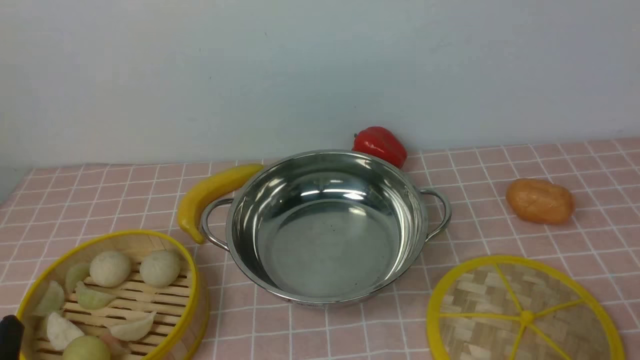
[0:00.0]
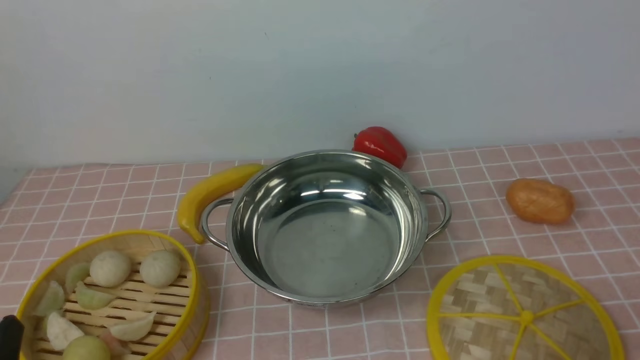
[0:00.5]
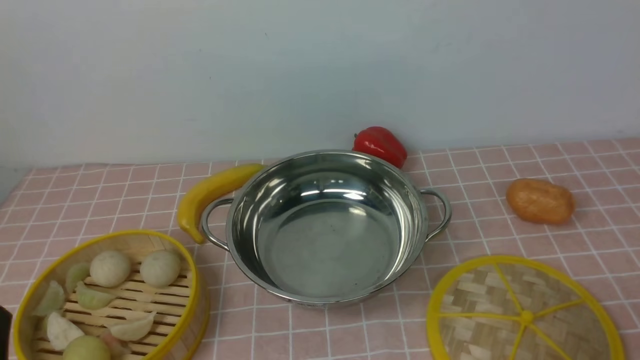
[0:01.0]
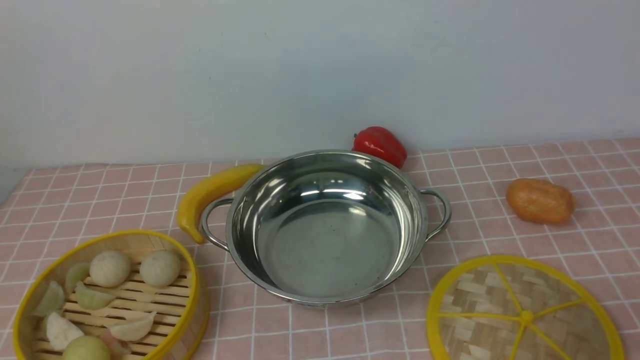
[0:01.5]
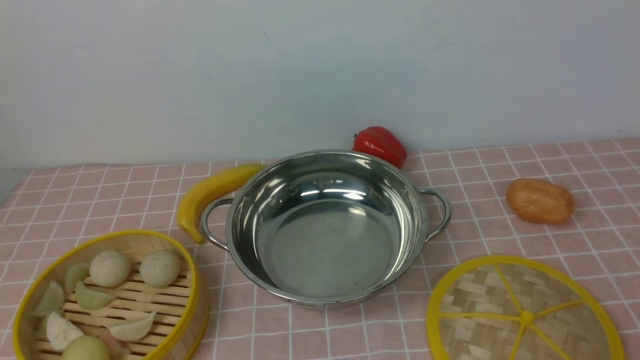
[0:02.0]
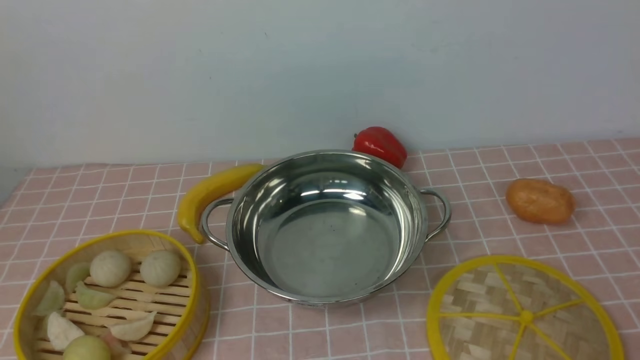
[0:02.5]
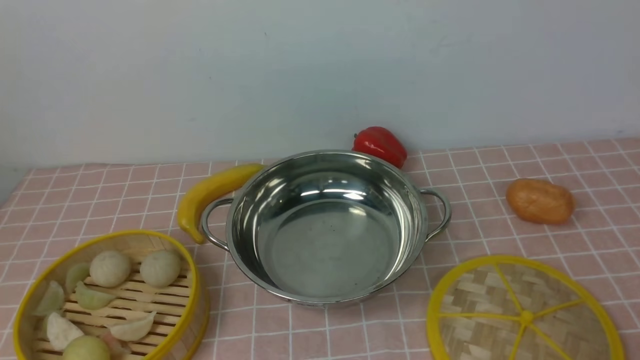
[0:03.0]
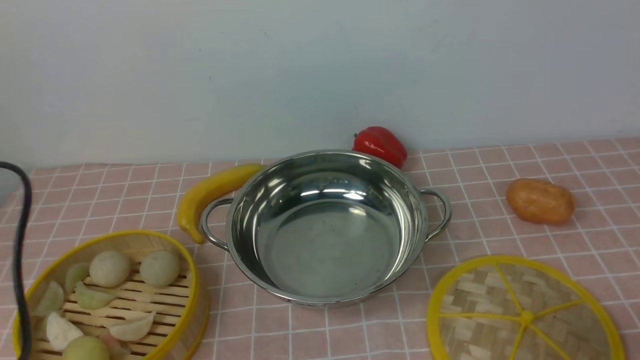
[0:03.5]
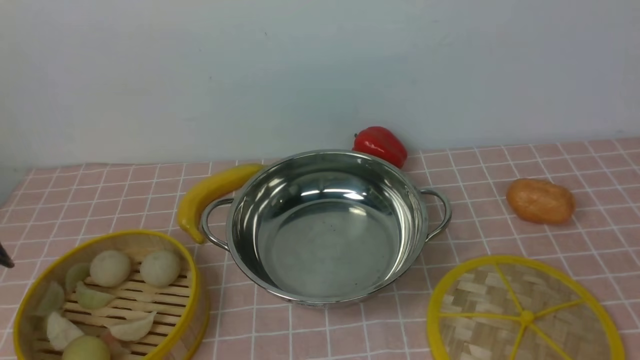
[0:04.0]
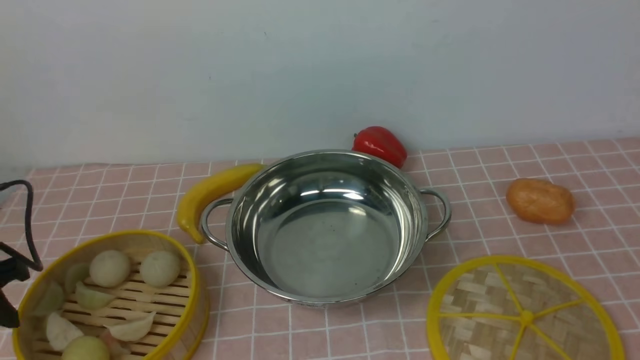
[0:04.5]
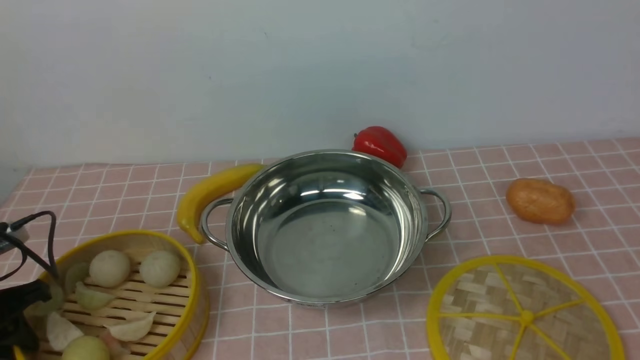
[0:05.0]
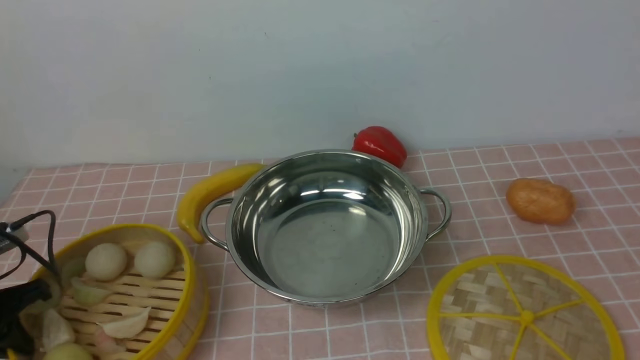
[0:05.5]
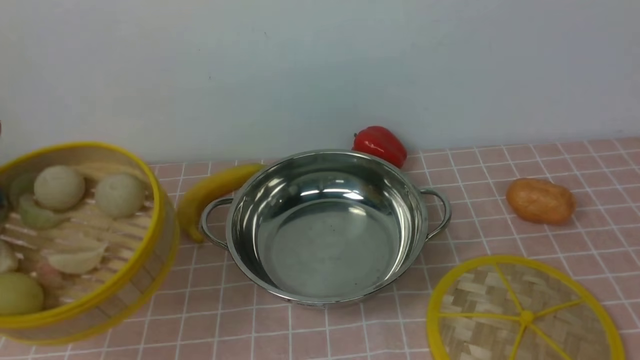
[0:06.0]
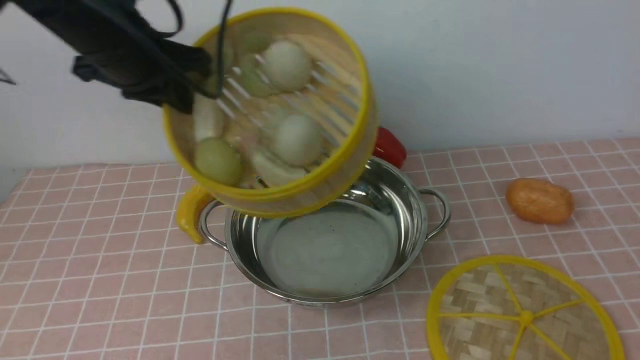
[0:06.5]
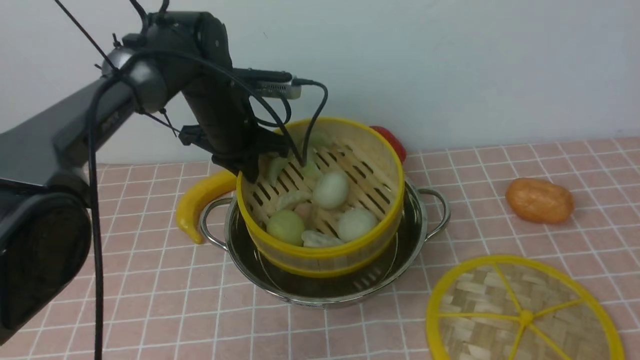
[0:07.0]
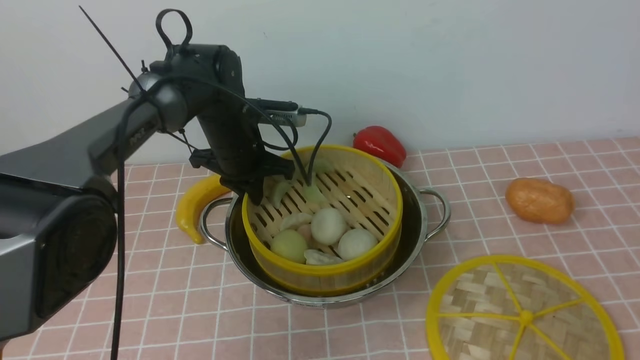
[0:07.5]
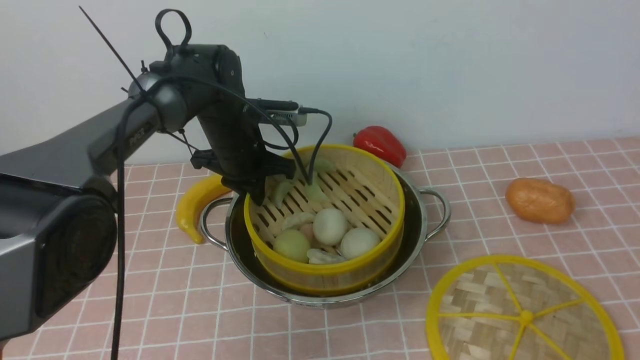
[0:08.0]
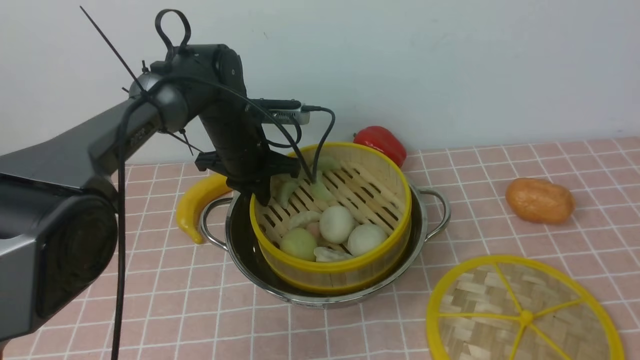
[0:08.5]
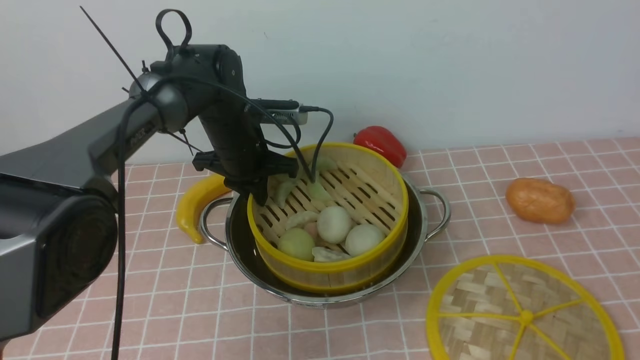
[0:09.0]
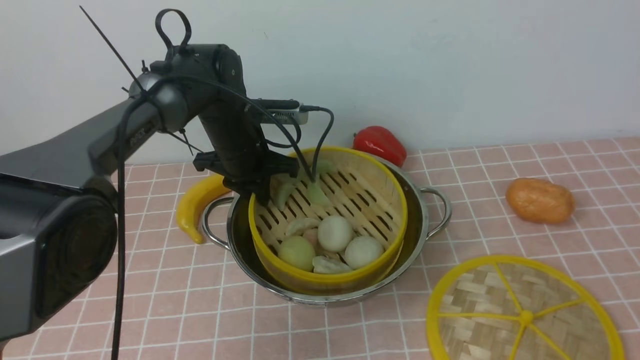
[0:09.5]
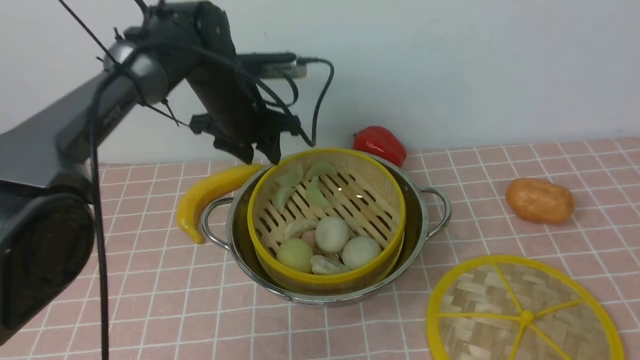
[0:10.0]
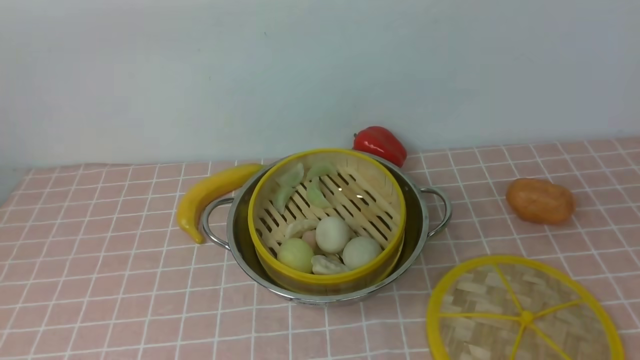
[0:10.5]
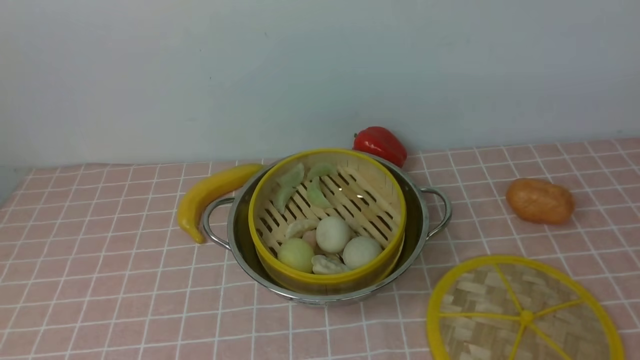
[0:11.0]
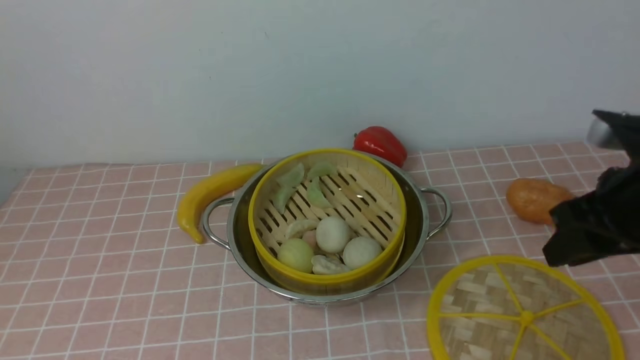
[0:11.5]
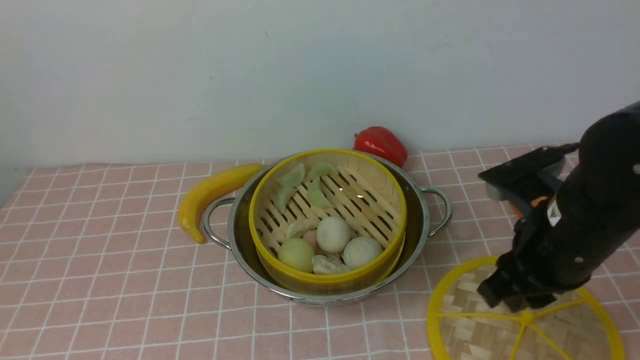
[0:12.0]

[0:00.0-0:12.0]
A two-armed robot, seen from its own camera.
Task of the whole recording: place the steamer in the pot on the pink tablecloth, and put the lid on the steamer.
Step, 0:00.0 to 0:05.5: use the left arm to lift the steamer closest to it.
Step, 0:06.0 to 0:09.5: use the left arm to put the steamer into the iron steamer pot in the middle.
0:02.0 to 0:04.0: The left gripper heads forward and to the left, covering some 20 cm.
0:04.0 to 0:06.0: The left gripper is displaced forward by roughly 5 cm, travels downward and back again, approximately 10 cm each way, and closes up.
0:06.0 to 0:08.0: The left gripper goes some 35 cm to the right, forward and downward.
0:08.0 to 0:10.0: The left gripper shifts about 10 cm upward, and opens up.
0:10.0 to 0:12.0: The right gripper heads forward, covering about 25 cm, and closes up. The left gripper shifts about 50 cm backward.

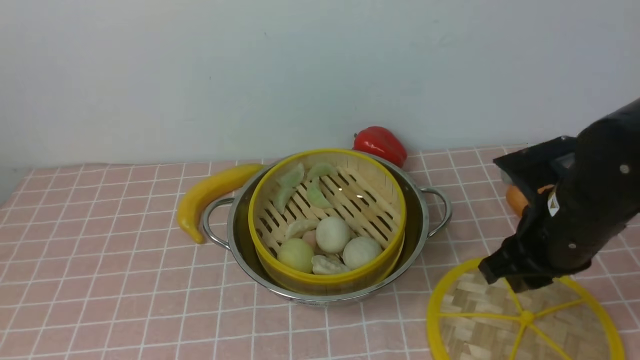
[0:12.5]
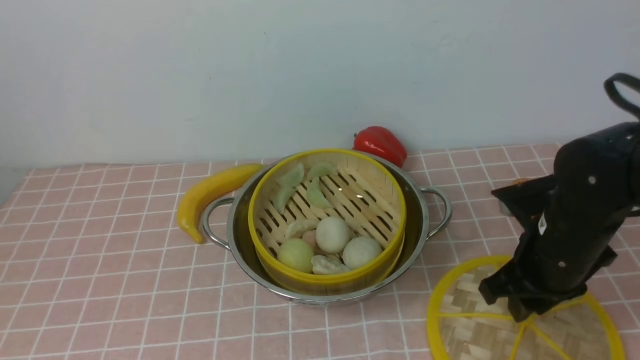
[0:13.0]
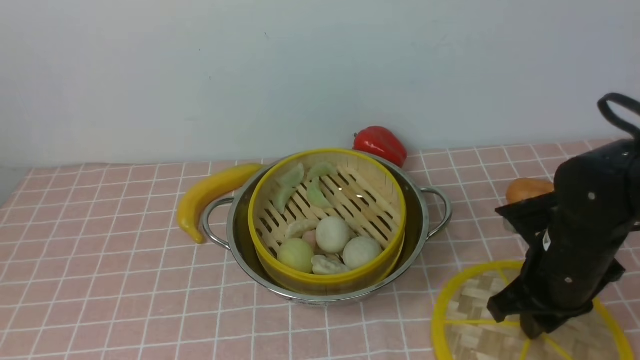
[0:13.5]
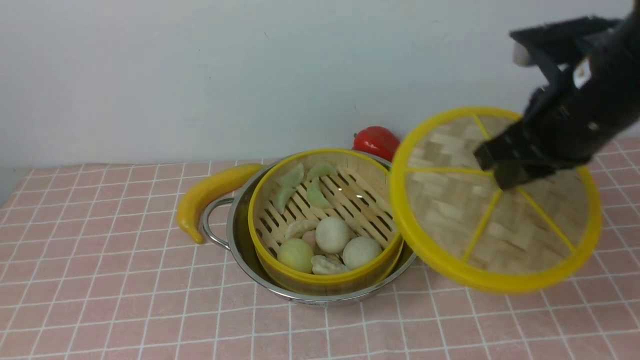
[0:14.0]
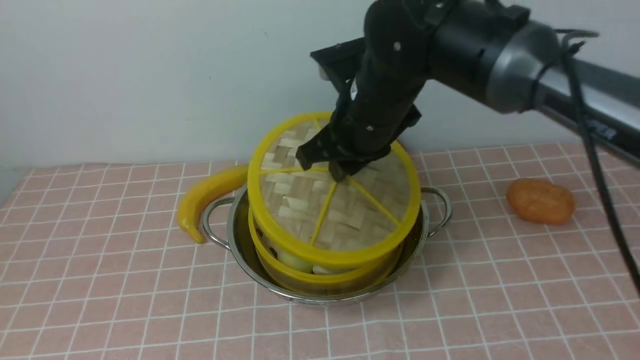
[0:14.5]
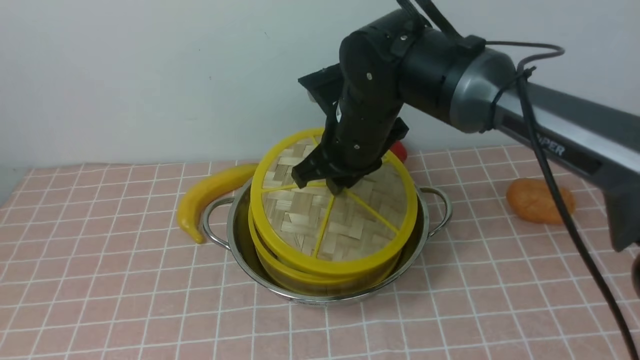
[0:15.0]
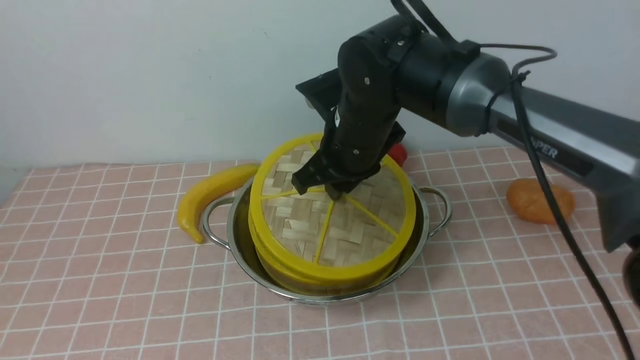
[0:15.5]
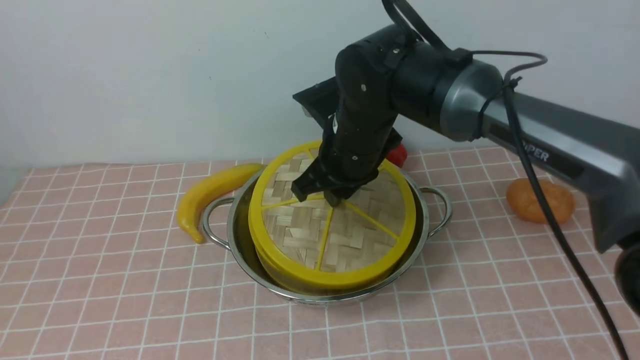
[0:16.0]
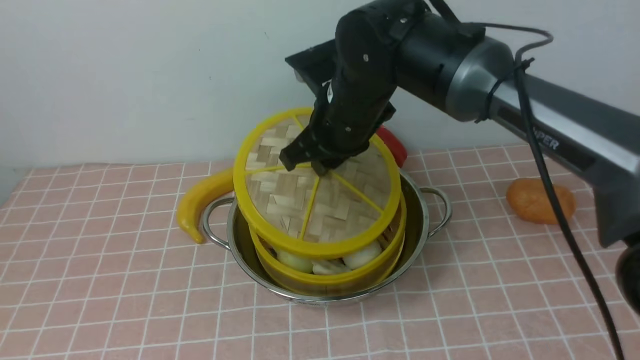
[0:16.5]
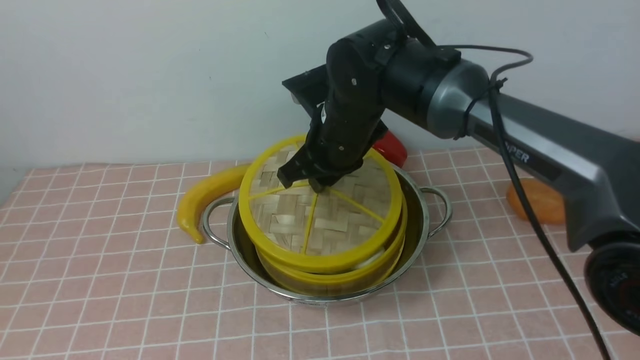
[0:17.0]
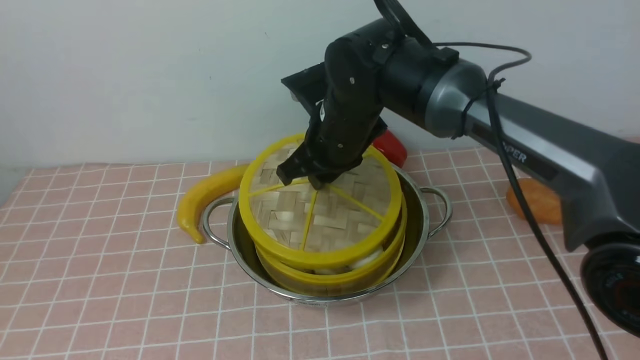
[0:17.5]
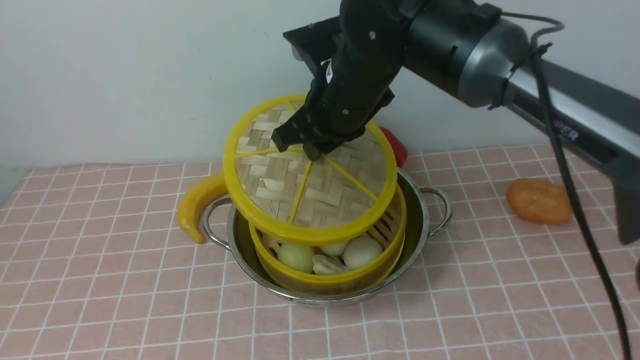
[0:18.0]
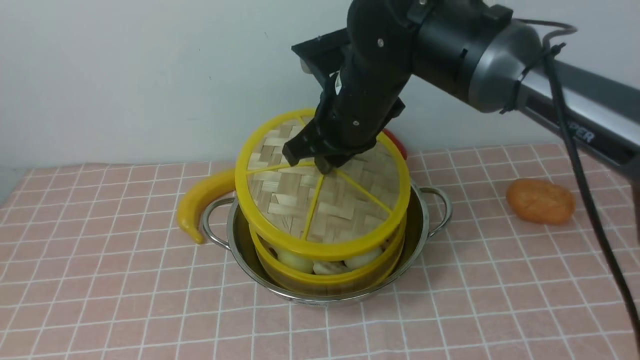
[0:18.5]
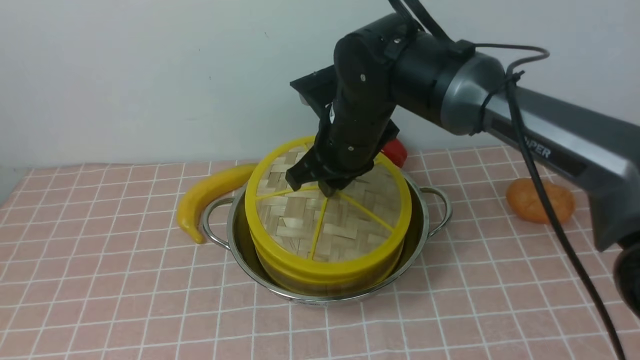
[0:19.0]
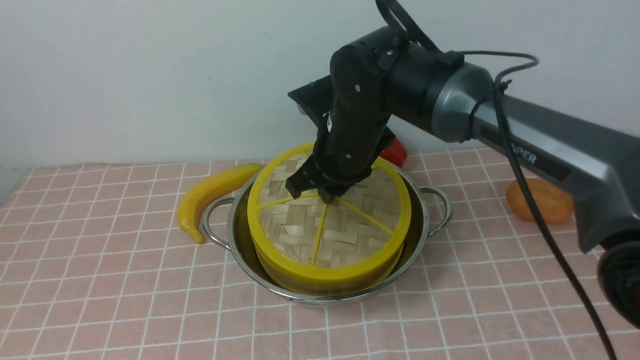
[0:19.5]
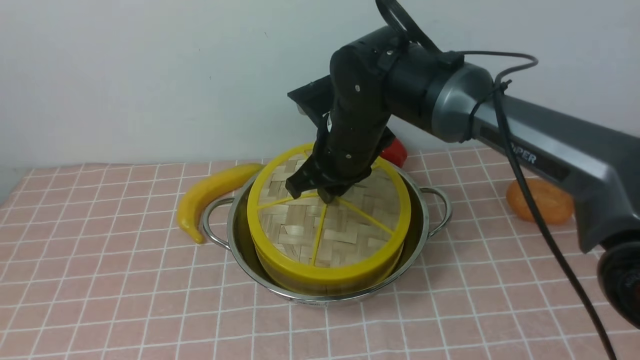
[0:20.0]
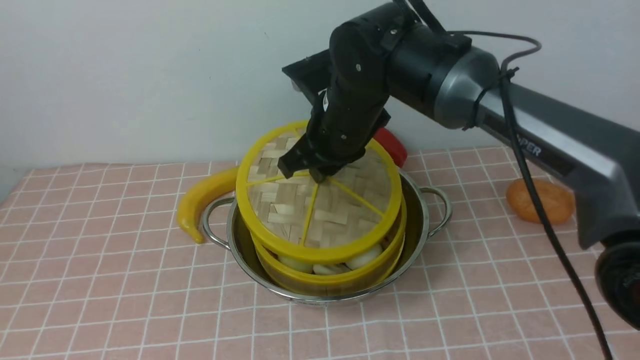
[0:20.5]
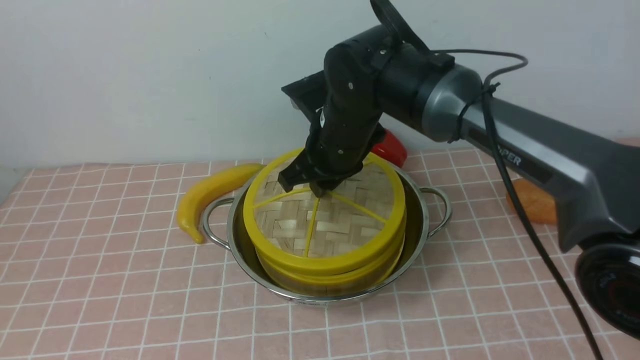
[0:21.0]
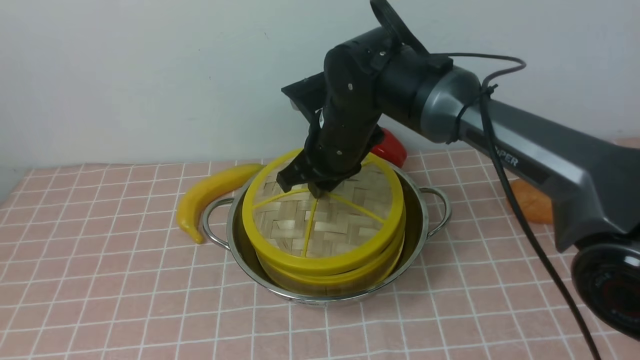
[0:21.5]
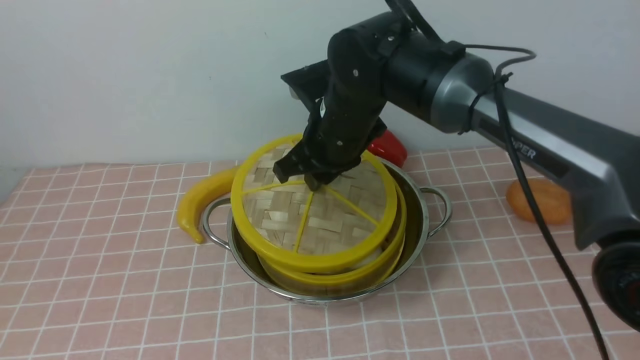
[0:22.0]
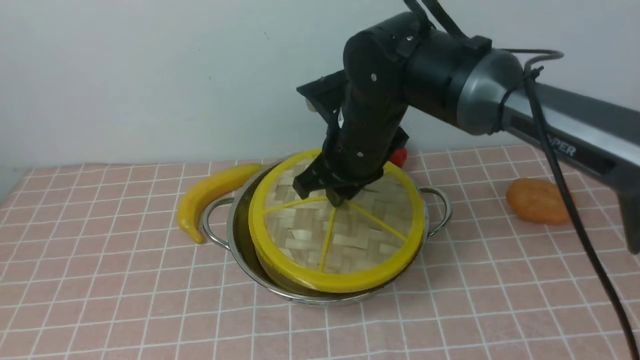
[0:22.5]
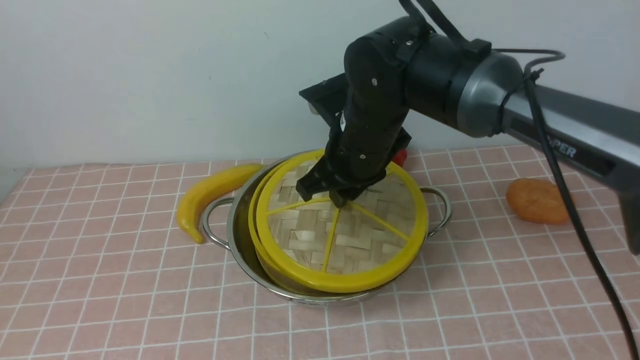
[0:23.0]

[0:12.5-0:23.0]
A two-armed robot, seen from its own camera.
Task of the whole recording: place the steamer in the pot on the pink tablecloth, and put the lid on the steamer.
0:12.5 to 0:14.5: The right gripper travels to the left and forward by some 20 cm, and closes.
0:14.5 to 0:19.0: The grippers move only a little.
0:19.0 to 0:23.0: The grippers move only a little.
